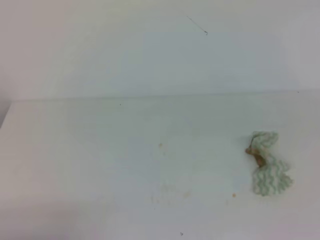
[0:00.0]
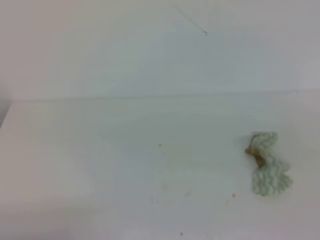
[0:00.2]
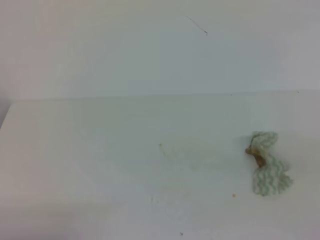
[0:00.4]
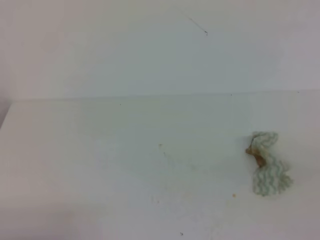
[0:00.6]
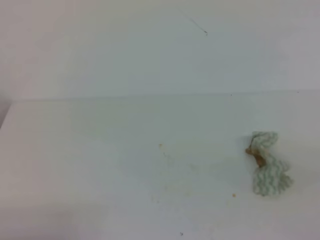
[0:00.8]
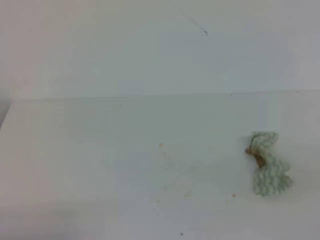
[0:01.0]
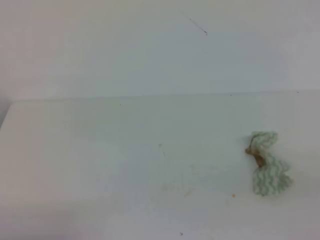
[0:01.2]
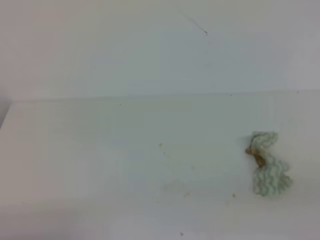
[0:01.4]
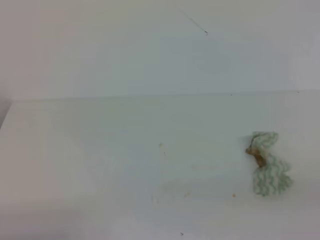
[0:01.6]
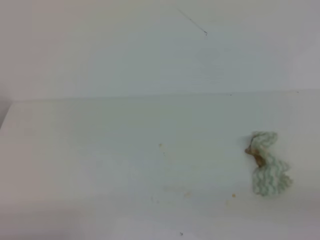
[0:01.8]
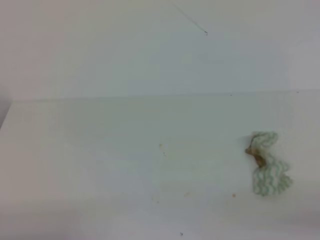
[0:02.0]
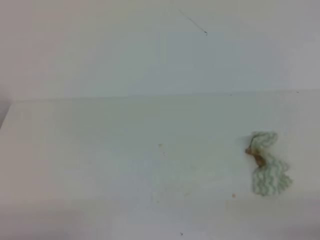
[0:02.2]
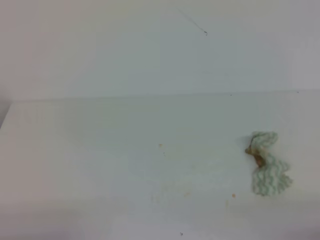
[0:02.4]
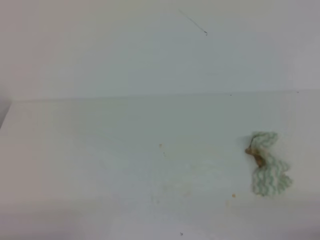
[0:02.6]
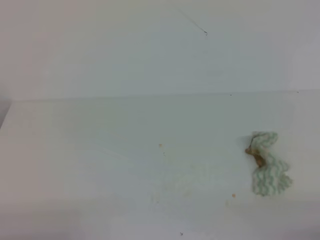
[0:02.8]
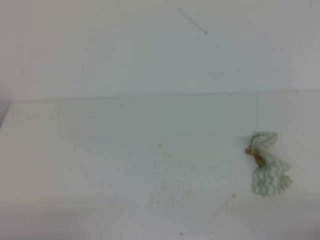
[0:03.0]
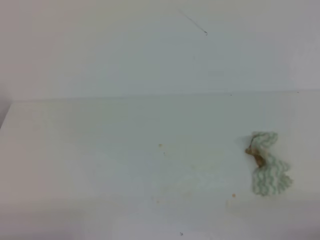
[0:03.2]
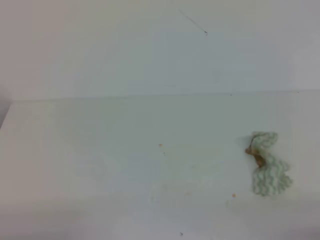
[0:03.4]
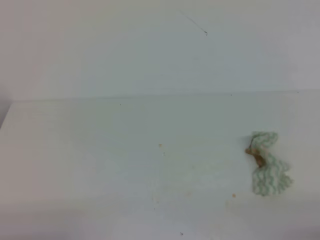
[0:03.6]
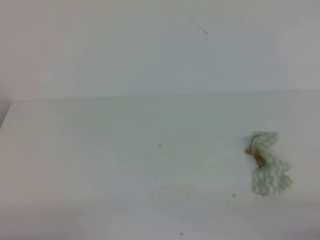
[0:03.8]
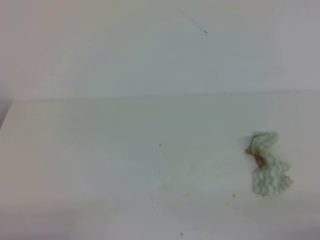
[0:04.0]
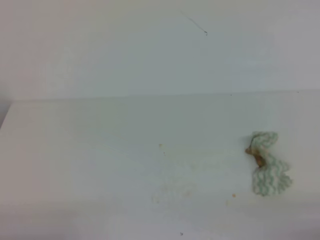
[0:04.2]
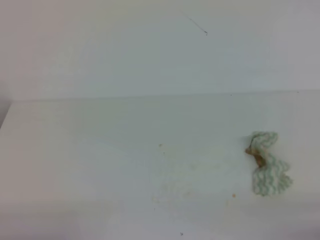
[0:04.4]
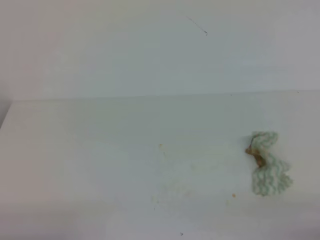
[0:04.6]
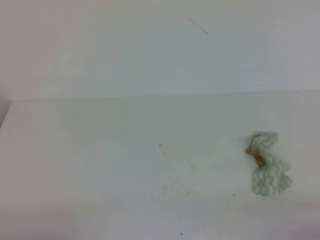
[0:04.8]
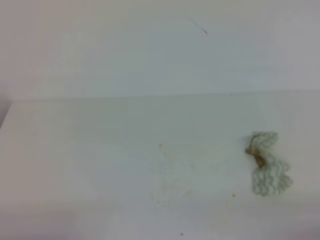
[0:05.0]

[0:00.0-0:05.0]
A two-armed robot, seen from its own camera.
0:00.0 to 0:01.6: The right gripper travels backward and downward by roughly 15 cm.
0:03.4 to 0:05.0: Neither gripper changes place.
